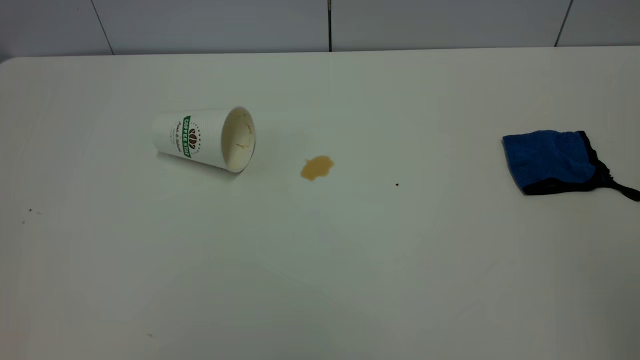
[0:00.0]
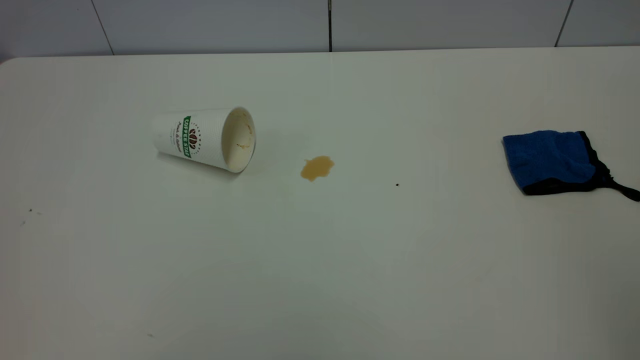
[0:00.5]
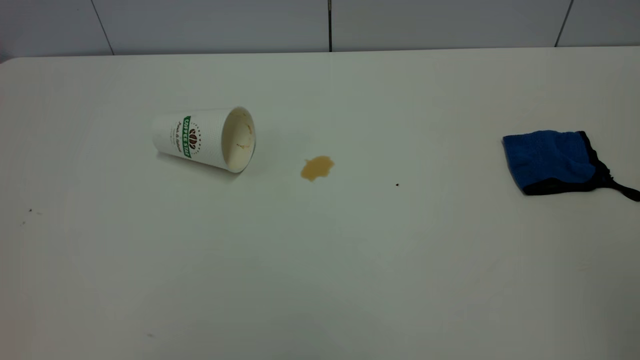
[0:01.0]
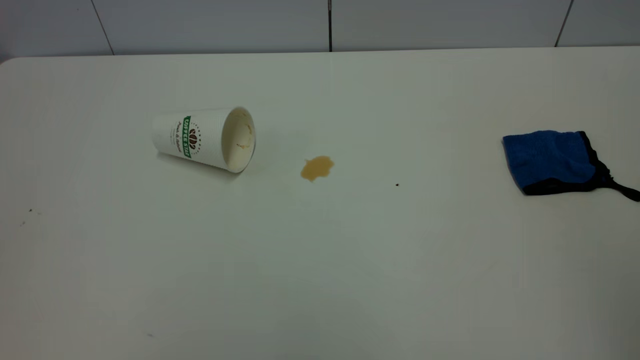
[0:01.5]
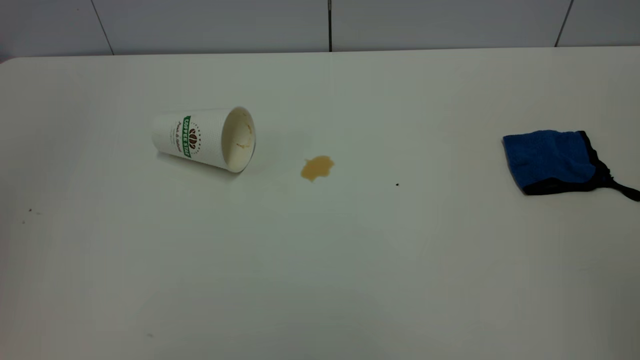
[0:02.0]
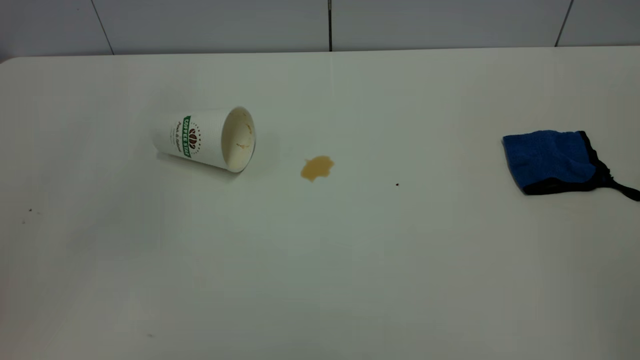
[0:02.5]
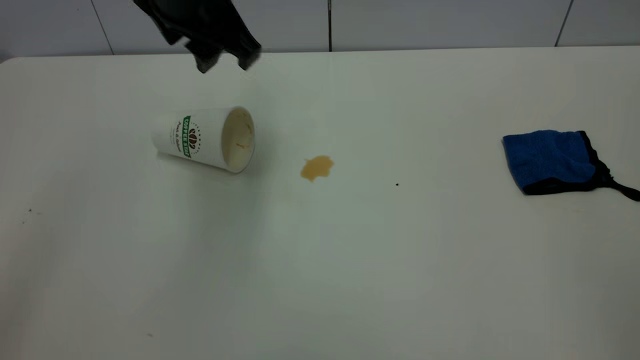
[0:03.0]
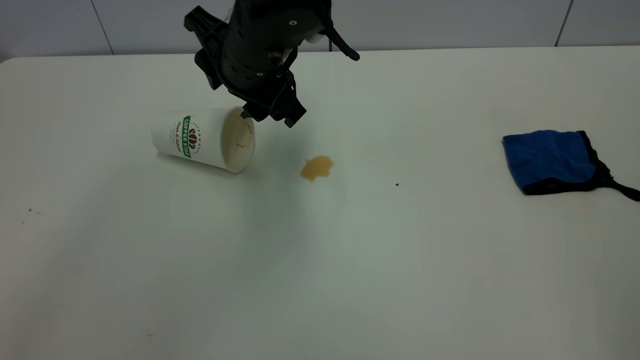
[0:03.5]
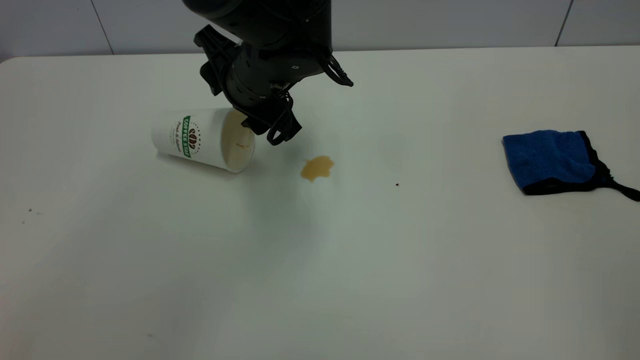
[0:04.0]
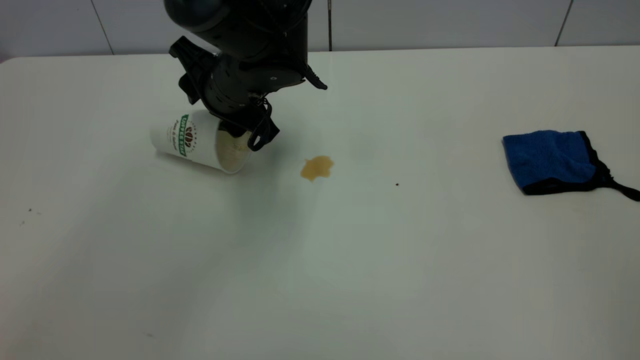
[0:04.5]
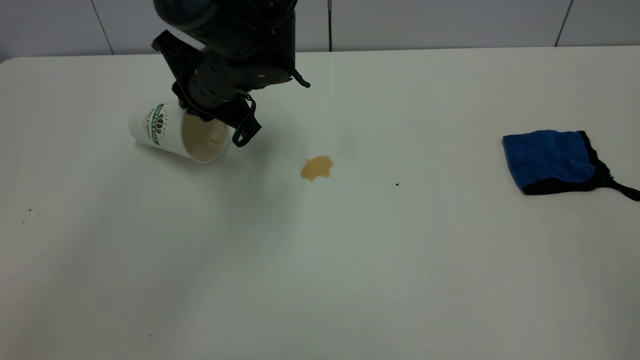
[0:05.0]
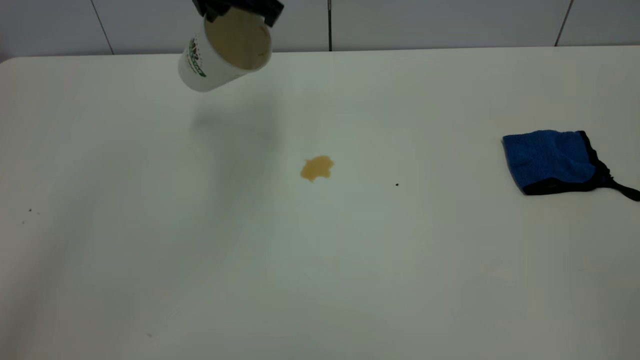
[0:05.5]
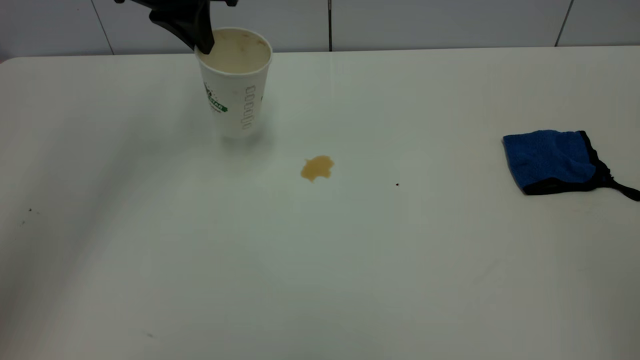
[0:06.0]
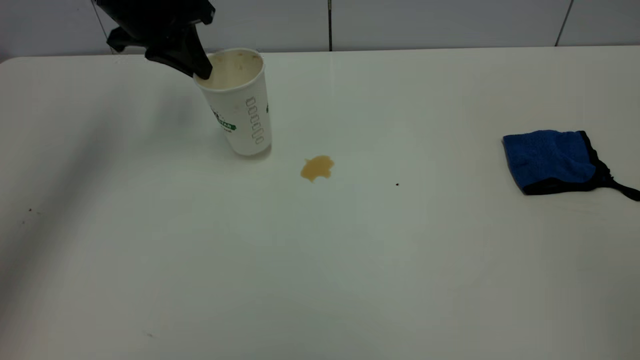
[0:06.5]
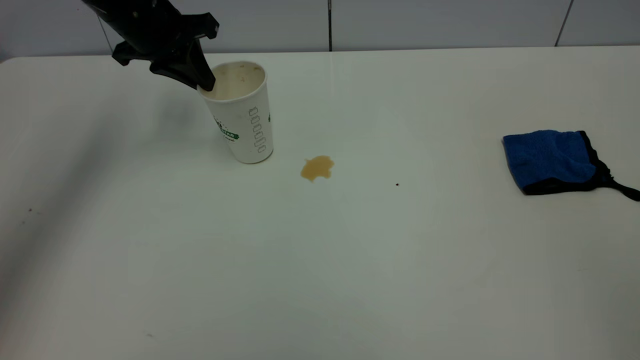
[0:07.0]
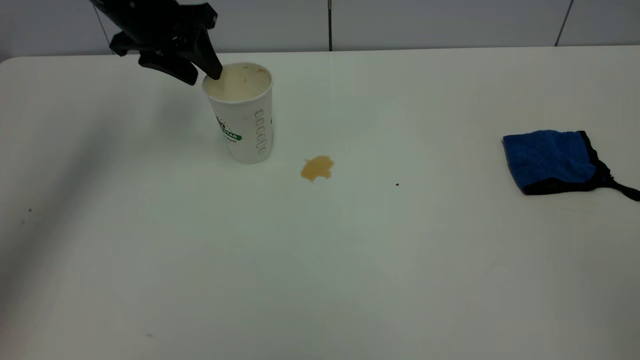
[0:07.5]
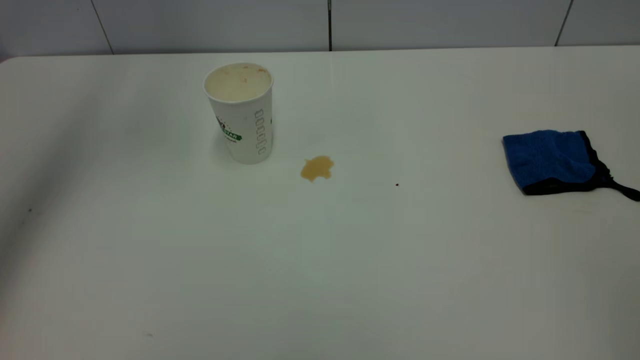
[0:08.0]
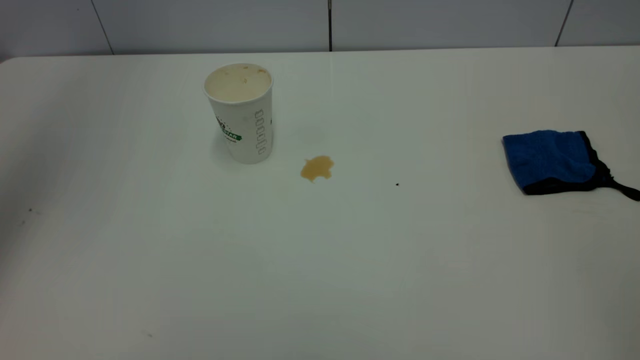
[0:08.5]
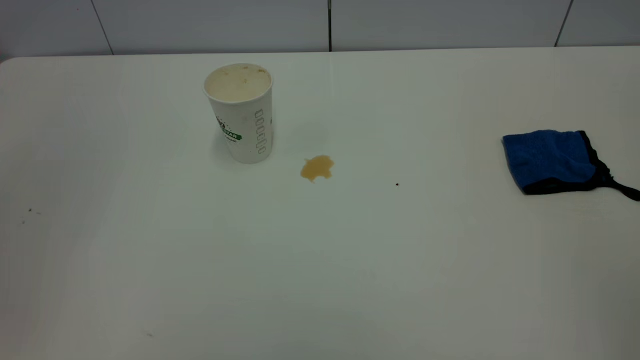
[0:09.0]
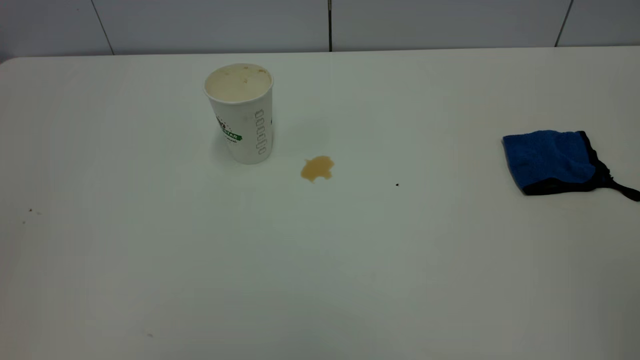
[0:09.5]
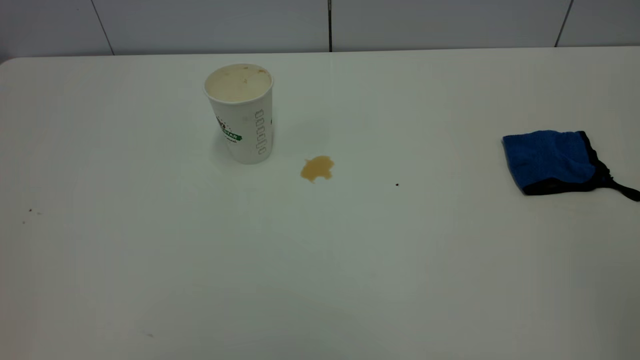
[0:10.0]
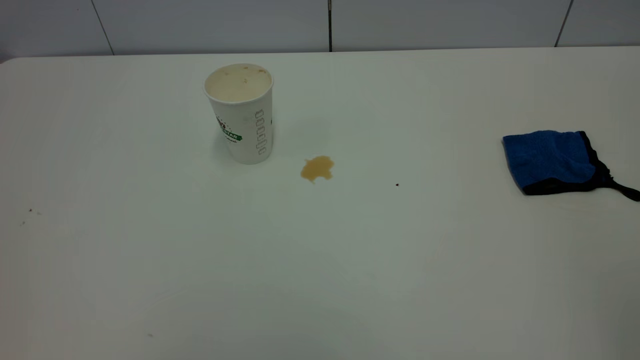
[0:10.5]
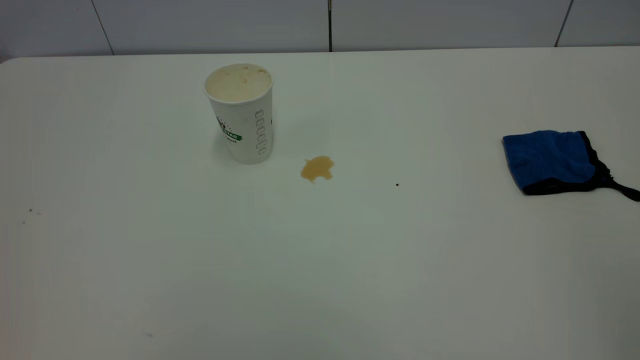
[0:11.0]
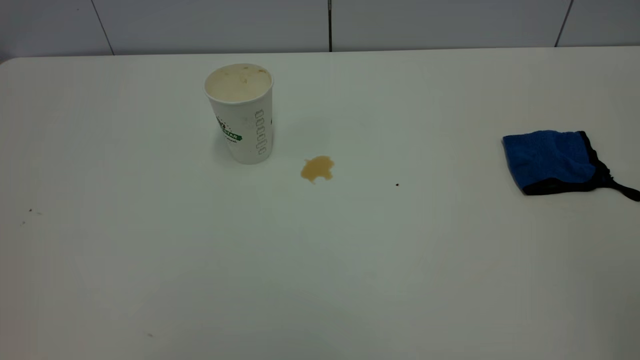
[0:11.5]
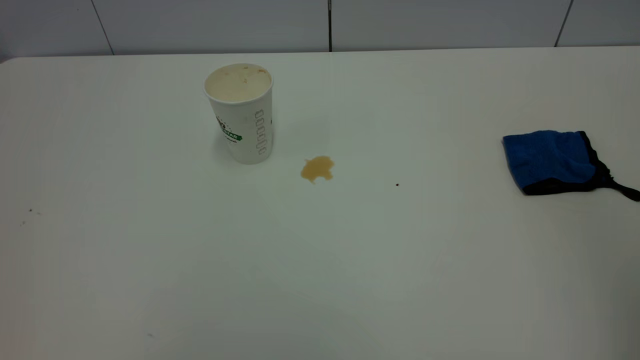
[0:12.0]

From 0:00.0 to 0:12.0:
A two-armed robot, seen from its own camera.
Task of the whole recording: the left gripper pick up the fallen cup and place it upright, the right gripper grasp the blue rag and wipe the tea stain on the table, the right gripper put the blue rag back in its original position.
Step, from 0:00.0 to 0:07.0: Stand the paper cup upright.
From 0:02.0 to 0:04.0: The left gripper goes about 40 cm downward, to the right and forward, and opens.
From 0:04.0 to 0:06.0: The left gripper moves to the left, upward and forward, approximately 20 cm, and closes.
From 0:06.0 to 0:08.0: The left gripper goes roughly 15 cm upward and to the left, and opens up.
From 0:08.0 to 0:10.0: The left gripper shifts some 40 cm backward.

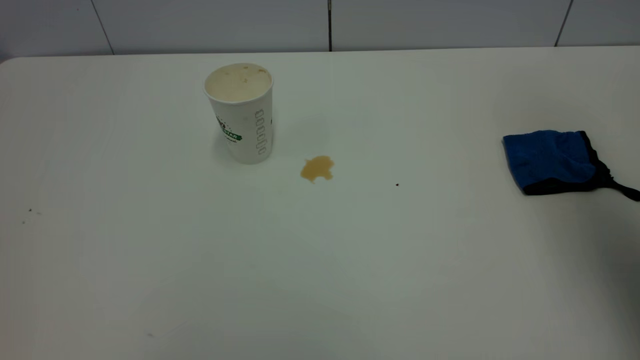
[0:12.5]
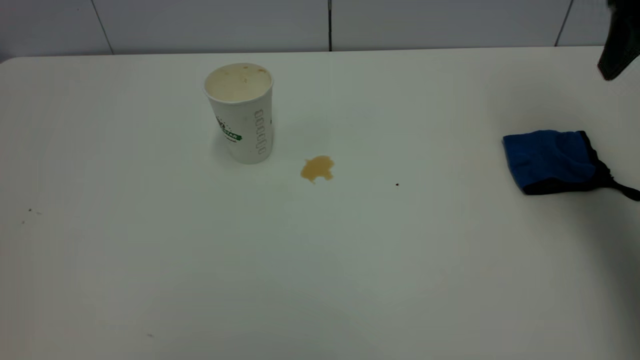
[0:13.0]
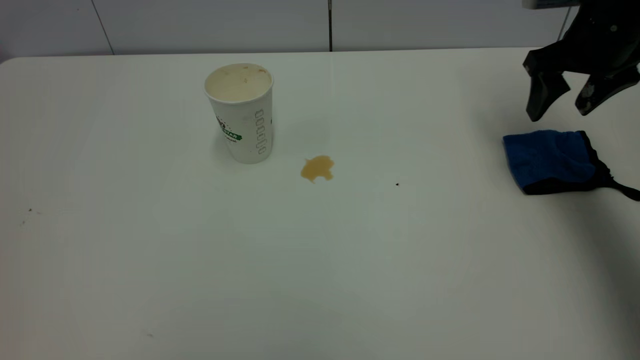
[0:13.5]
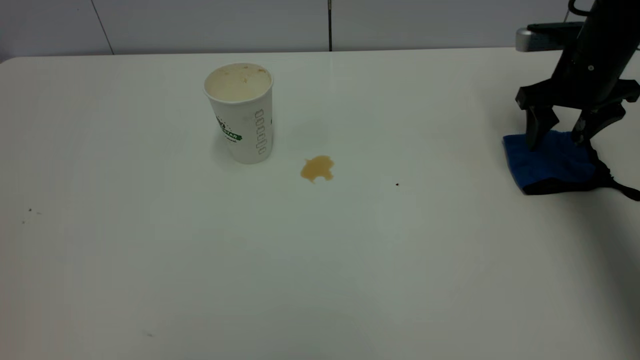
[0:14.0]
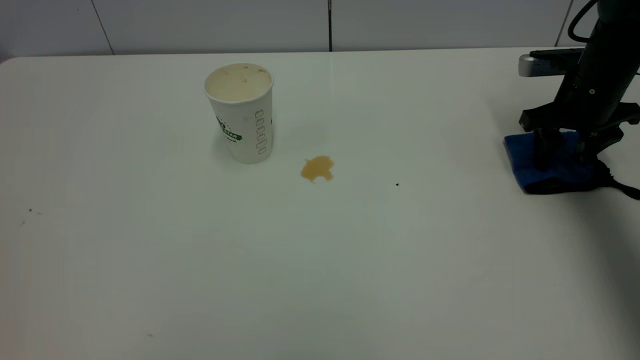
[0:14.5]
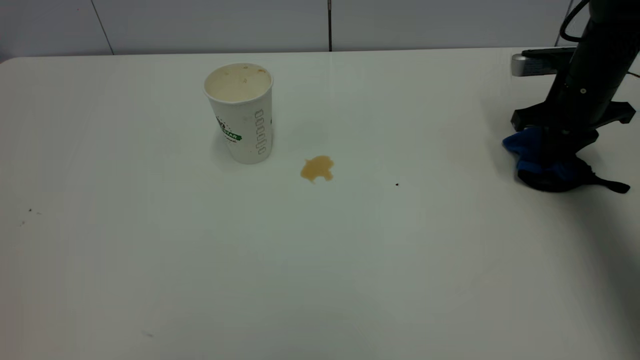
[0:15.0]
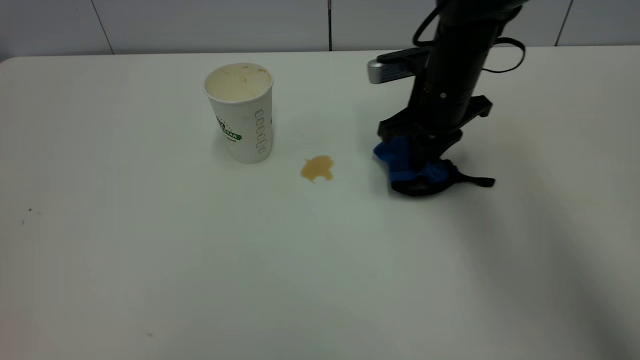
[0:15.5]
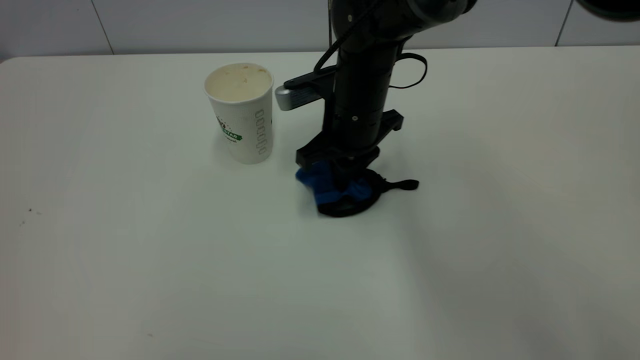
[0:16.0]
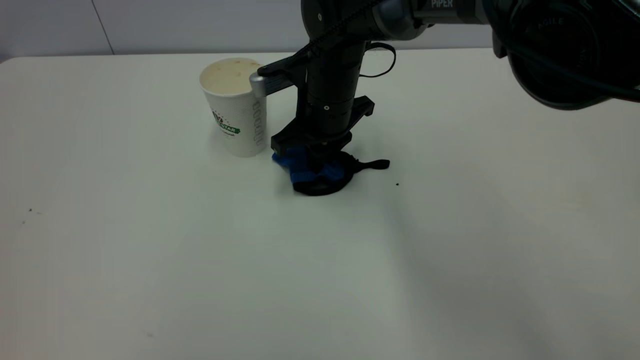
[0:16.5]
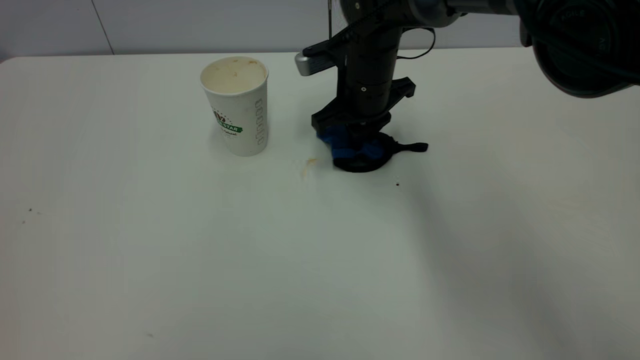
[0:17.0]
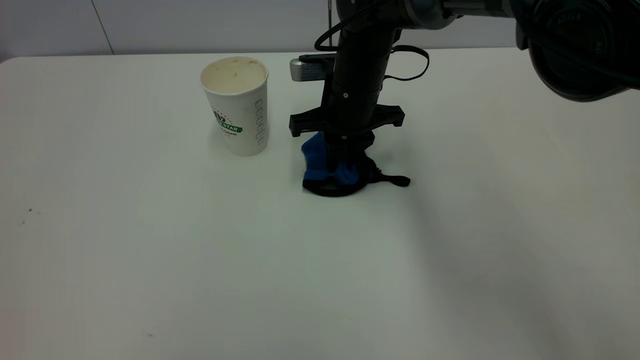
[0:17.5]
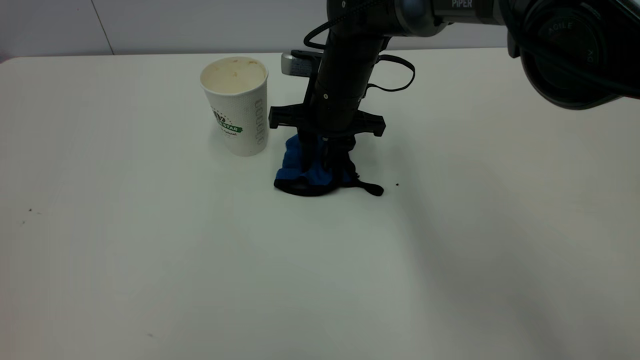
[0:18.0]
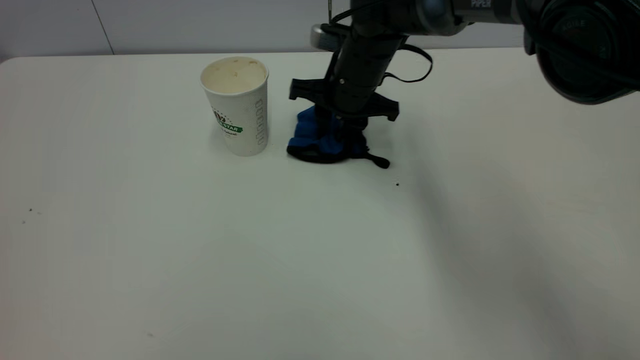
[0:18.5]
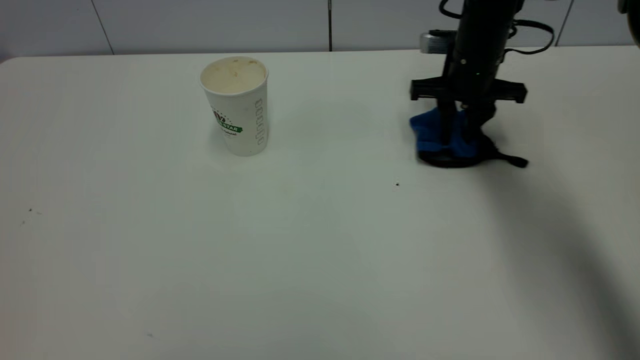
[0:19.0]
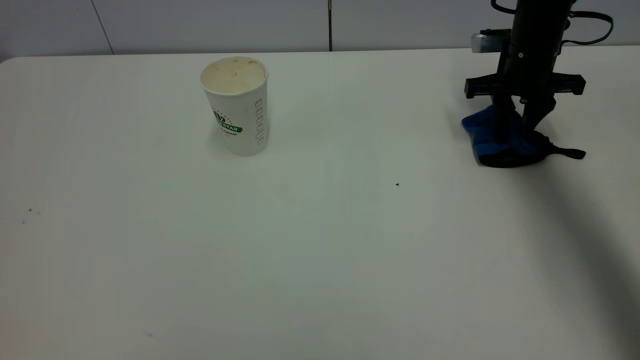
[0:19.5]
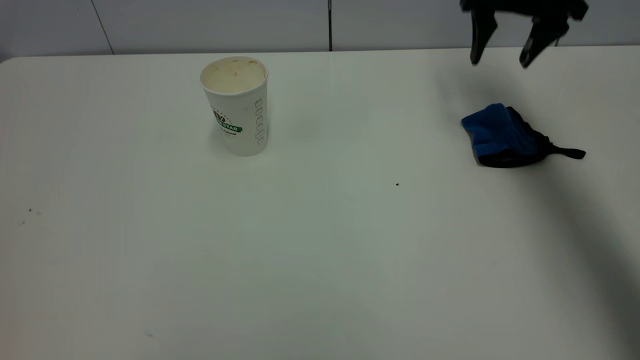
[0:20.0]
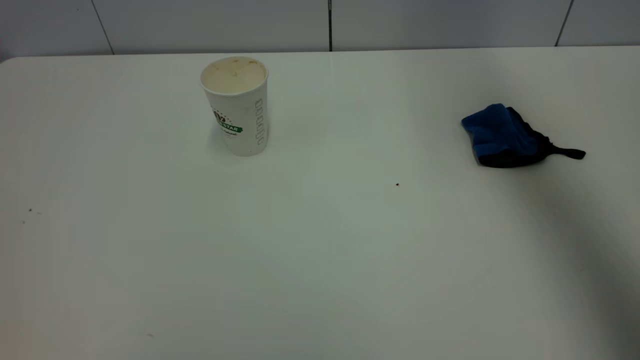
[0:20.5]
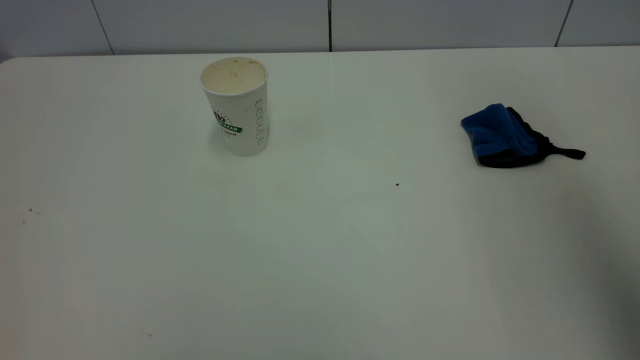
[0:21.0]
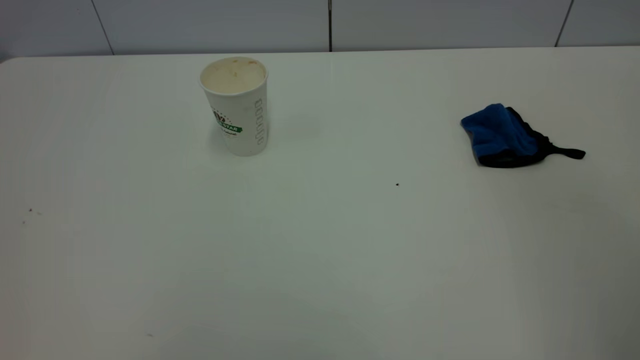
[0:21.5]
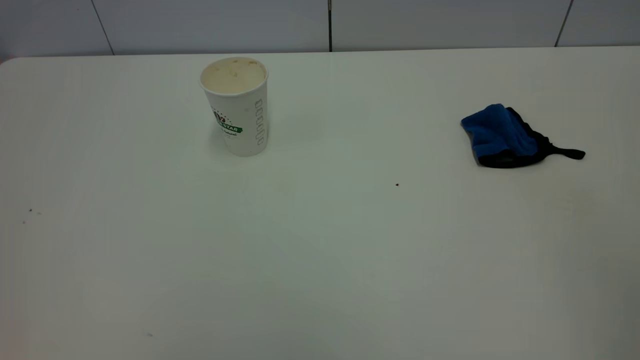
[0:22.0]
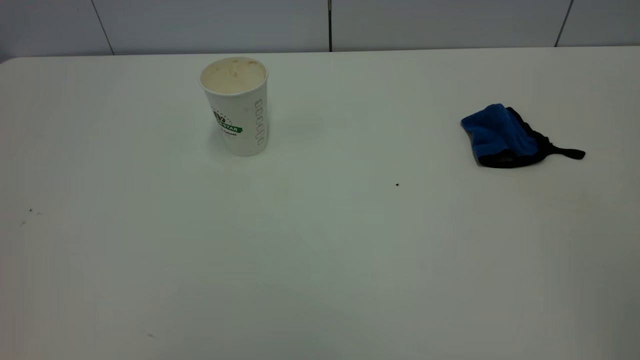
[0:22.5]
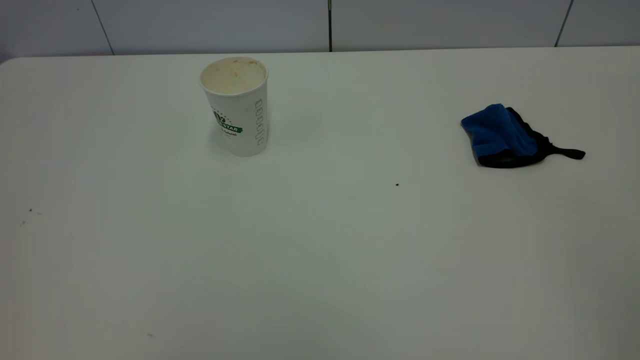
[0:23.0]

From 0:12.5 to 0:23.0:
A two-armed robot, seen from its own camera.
Task of the whole recording: the left gripper pick up the fallen cup and place it upright, the right gripper grasp the blue rag and wipe the tea stain on the table, the right gripper put the blue rag back in its original position.
Step, from 0:12.5 to 0:19.5: Wipe the stains off the table with a rag.
From 0:12.5 to 0:14.5: The right gripper is displaced downward and forward by about 35 cm.
From 0:14.5 to 0:16.5: The right gripper moves to the left, approximately 30 cm, and closes up.
From 0:16.5 to 0:19.0: The right gripper swings left and right, about 20 cm each way, with 2 reversals.
From 0:19.0 to 0:21.0: The right gripper heads upward and backward, covering approximately 50 cm, and opens.
From 0:21.0 to 0:23.0: The right gripper heads backward and downward, covering about 25 cm.
